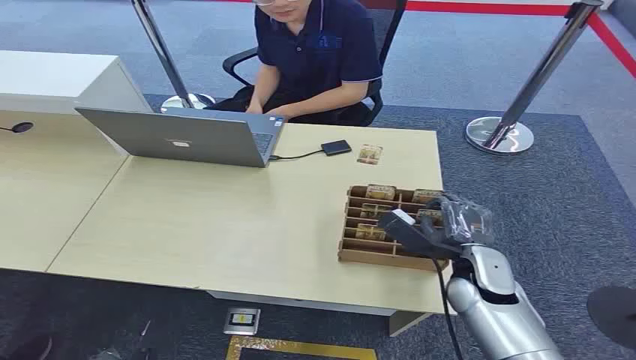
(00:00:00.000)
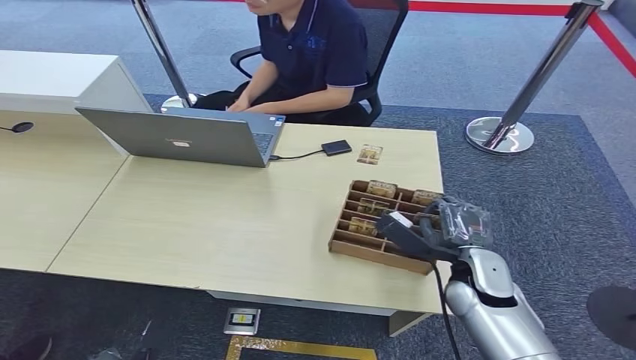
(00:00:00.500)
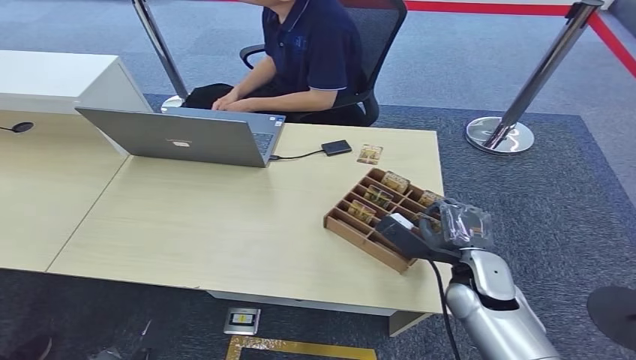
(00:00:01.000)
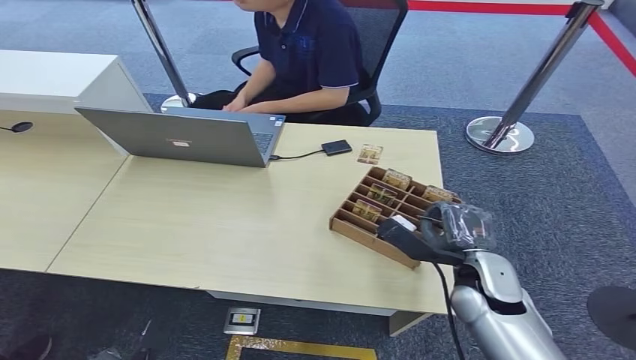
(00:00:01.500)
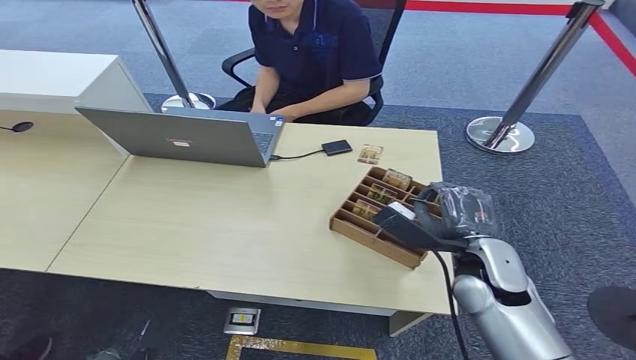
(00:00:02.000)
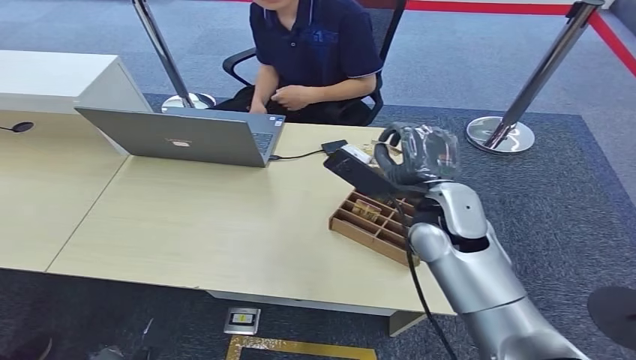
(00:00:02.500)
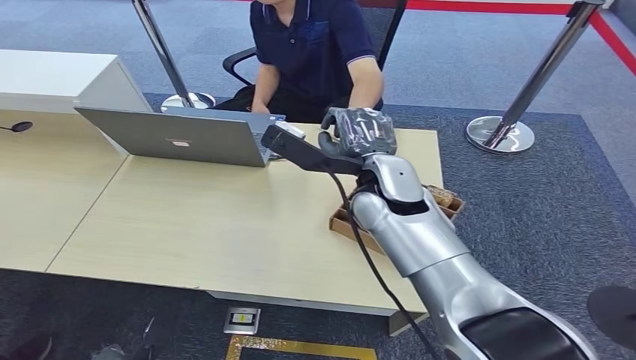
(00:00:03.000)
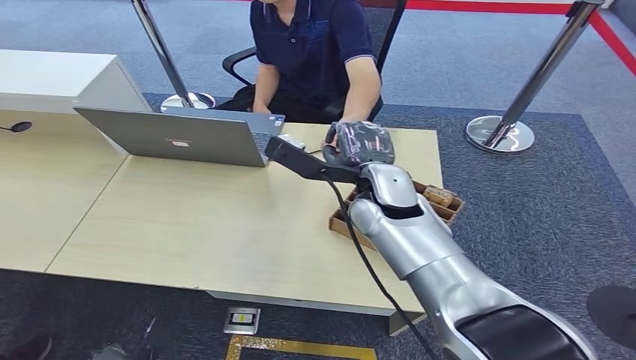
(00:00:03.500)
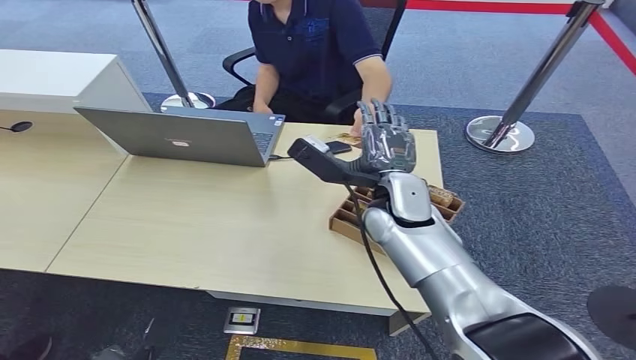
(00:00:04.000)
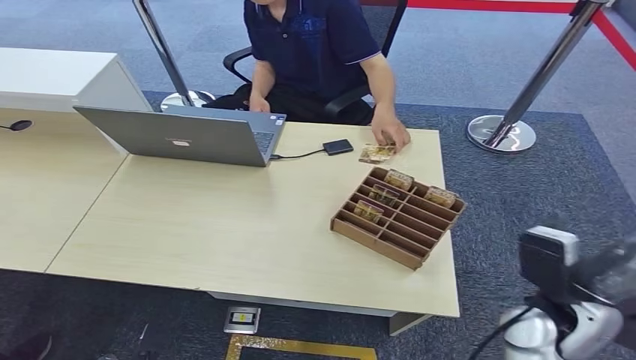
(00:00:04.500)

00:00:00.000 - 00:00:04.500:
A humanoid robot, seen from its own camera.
Step, 00:00:00.000 - 00:00:02.500: Pick up the key card from the card box.
Step, 00:00:03.000 - 00:00:04.000: Hand the key card to the target.
00:00:02.000 - 00:00:04.500: The right hand travels to the left and back again, some 15 cm each way.
